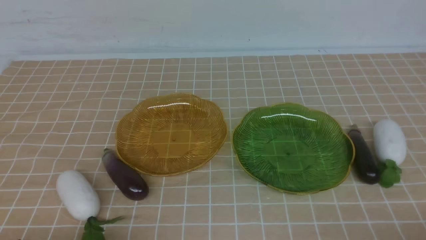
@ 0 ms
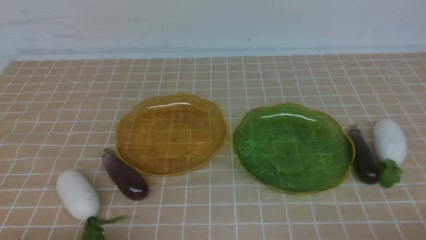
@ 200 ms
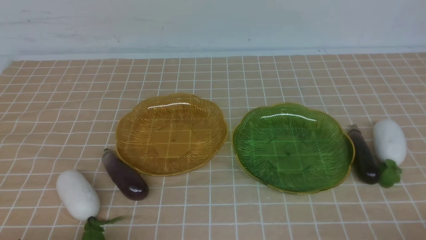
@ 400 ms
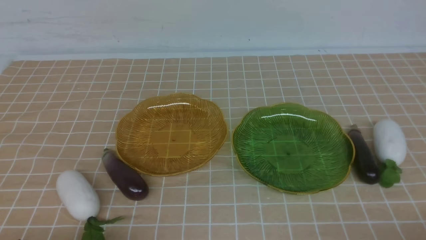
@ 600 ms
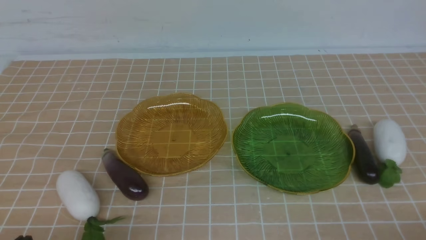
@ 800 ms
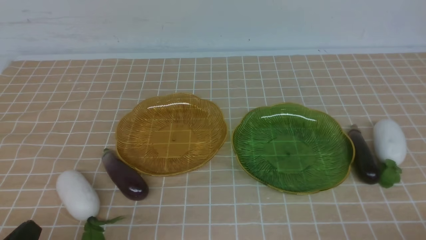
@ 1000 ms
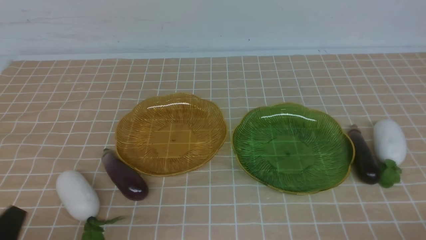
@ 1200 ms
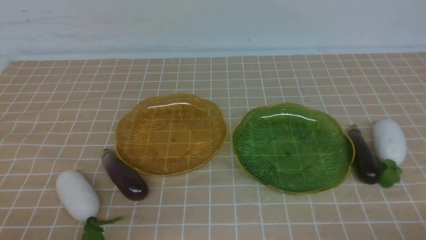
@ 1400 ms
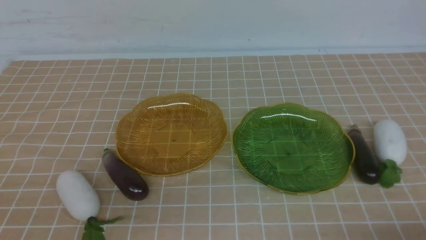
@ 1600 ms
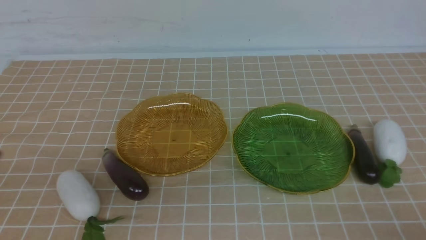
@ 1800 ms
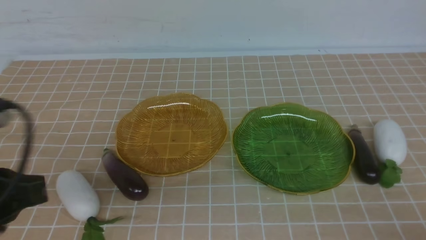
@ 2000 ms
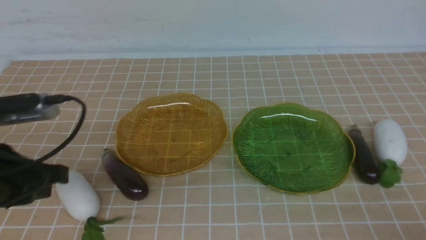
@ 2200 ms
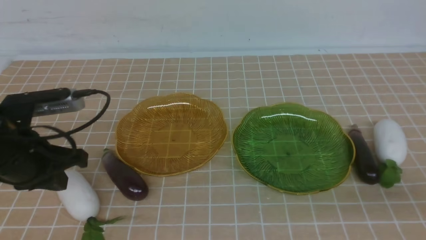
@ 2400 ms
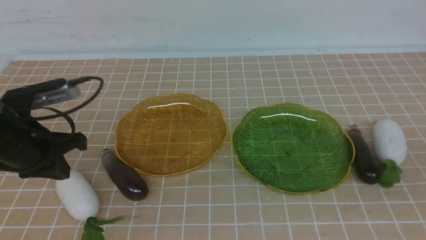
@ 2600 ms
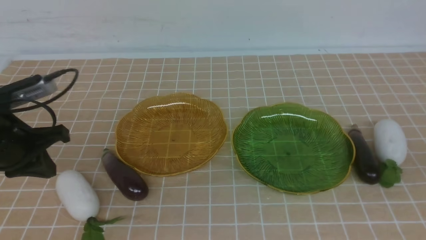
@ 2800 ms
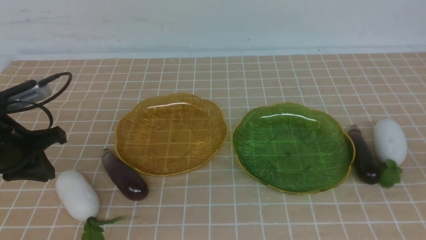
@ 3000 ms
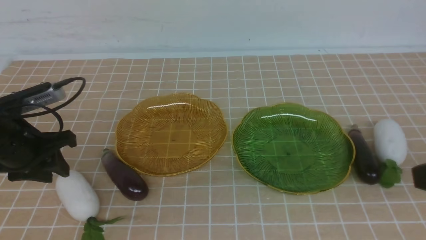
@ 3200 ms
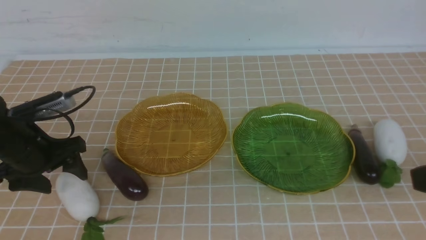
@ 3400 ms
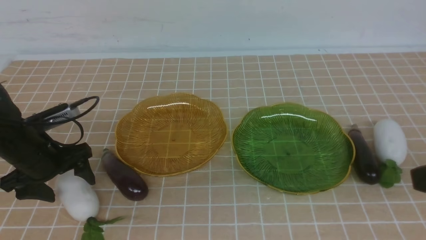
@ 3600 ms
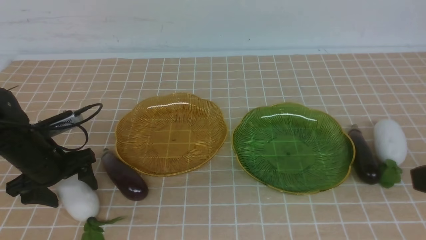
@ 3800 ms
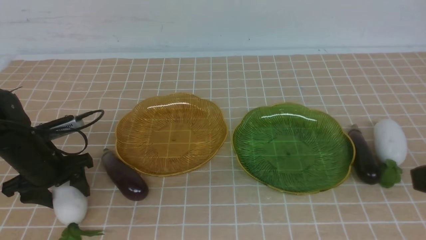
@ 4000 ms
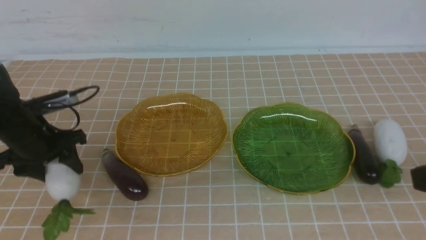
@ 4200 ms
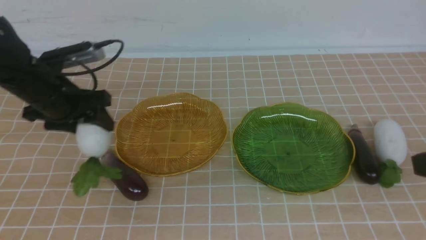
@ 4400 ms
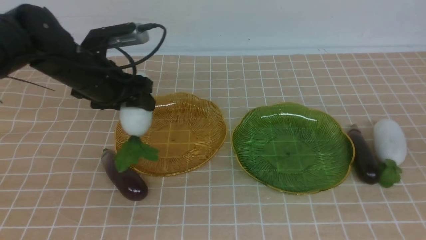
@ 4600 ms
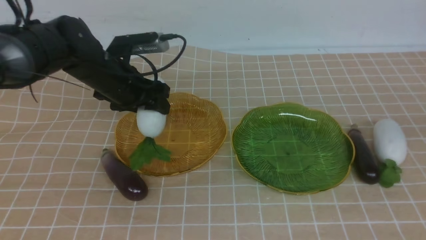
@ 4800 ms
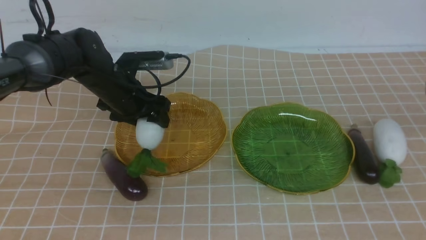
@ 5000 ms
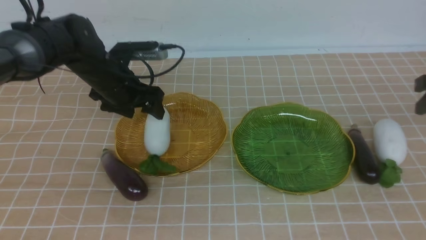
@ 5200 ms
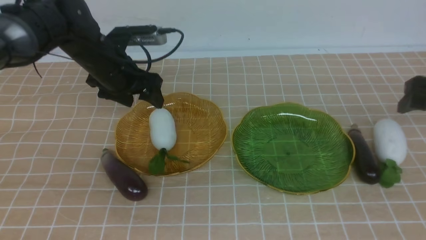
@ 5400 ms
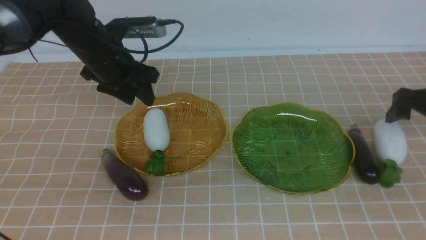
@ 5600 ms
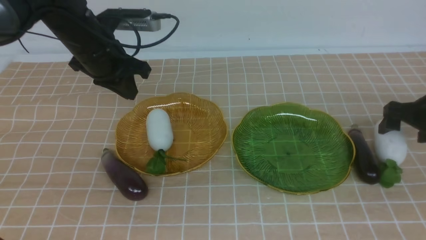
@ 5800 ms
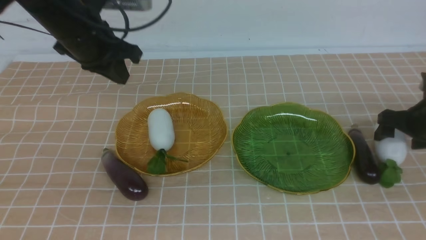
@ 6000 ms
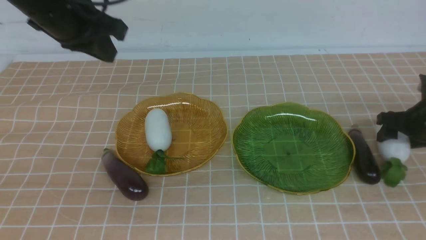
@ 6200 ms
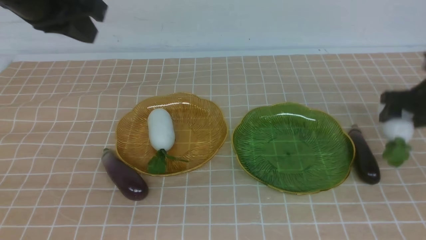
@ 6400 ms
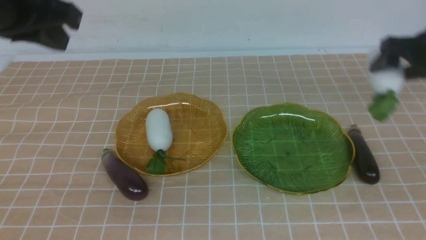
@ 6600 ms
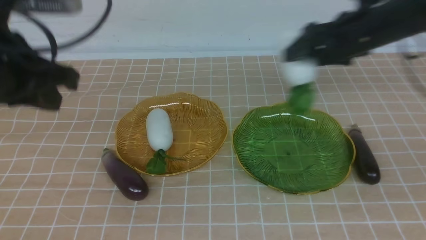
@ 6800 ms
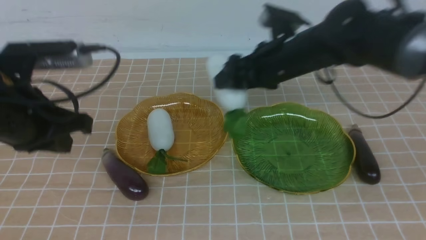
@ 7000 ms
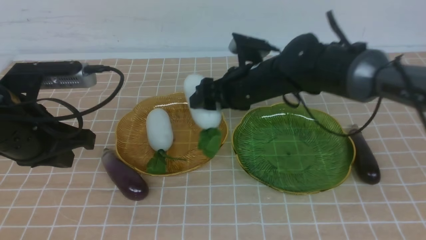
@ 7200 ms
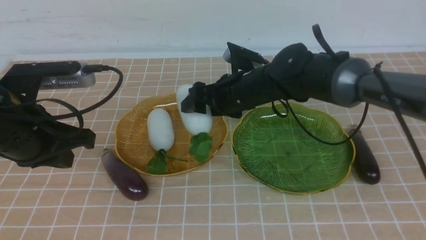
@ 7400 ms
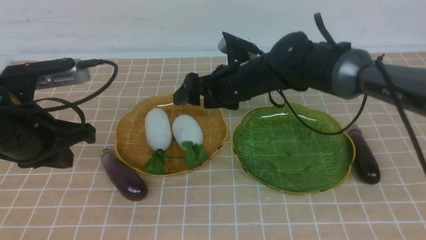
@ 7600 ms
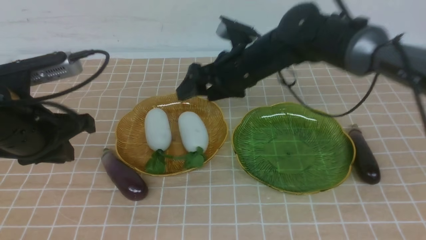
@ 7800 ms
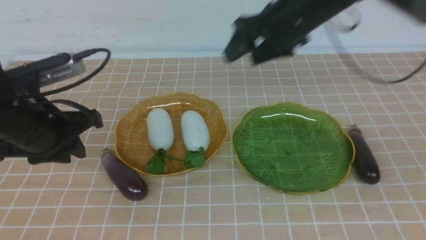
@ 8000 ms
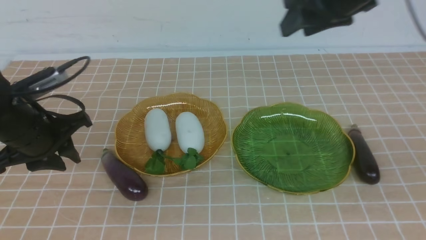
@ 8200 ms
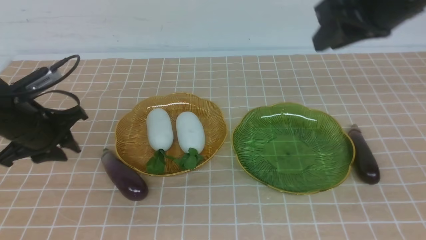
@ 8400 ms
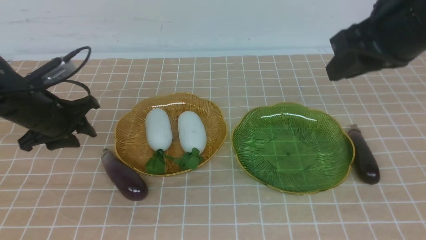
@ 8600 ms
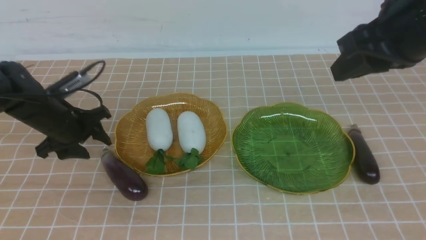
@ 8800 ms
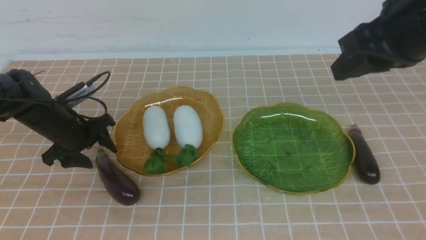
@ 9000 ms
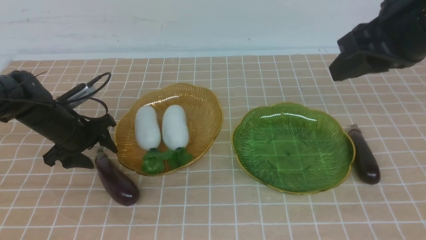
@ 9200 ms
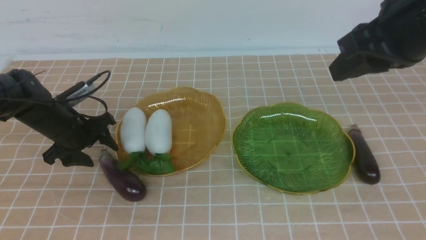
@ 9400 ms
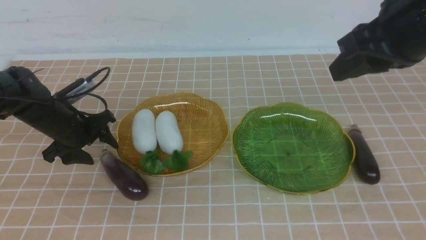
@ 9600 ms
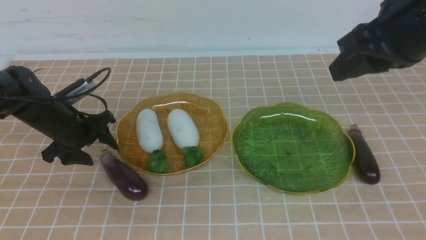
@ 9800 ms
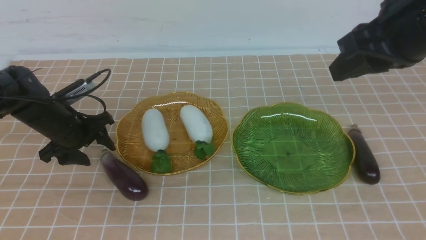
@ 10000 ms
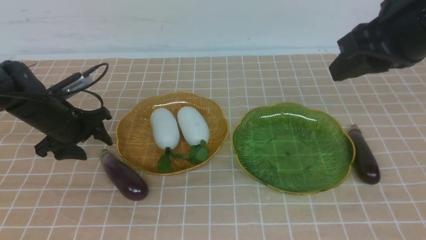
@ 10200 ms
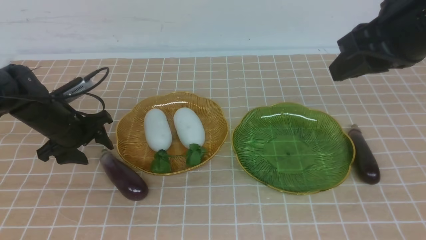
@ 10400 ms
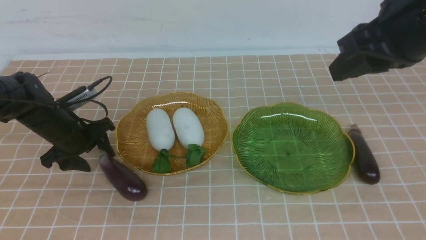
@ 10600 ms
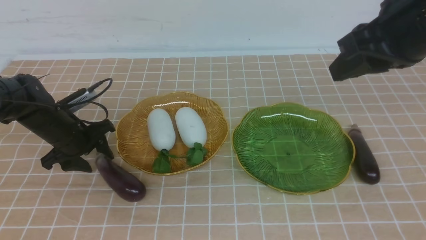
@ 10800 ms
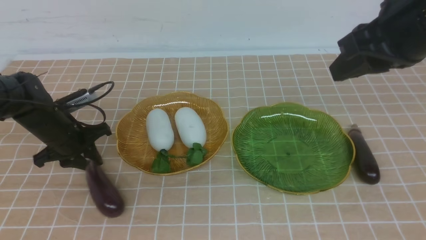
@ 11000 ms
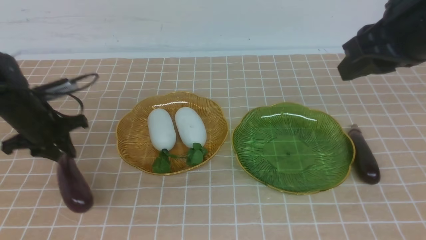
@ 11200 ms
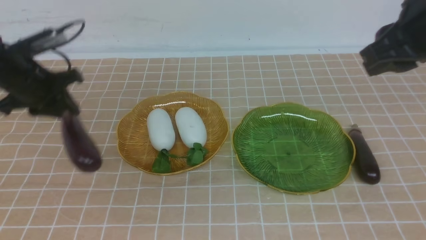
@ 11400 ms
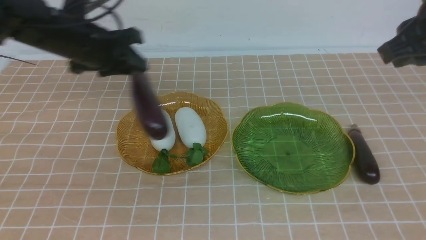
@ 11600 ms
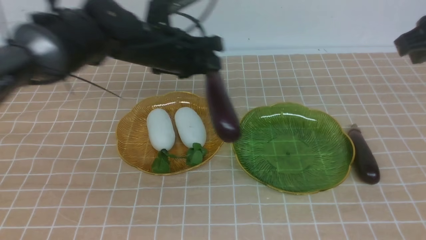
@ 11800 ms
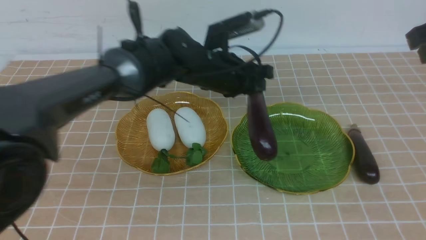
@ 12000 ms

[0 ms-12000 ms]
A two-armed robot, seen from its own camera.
Step, 0 ms to 5400 ms: use the left arm to grab a radish and put it into the left plate.
Step, 5600 ms to 7600 ms: use the right arm to grab a radish and put it into the left plate.
1600 ms to 3000 ms: The right gripper shifts some 20 cm upward. The left gripper heads forward, covering some 25 cm.
3000 ms to 4400 ms: The left gripper shifts some 10 cm forward, goes downward and returns, approximately 10 cm each way, and opens.
4400 ms to 6000 ms: The left gripper moves upward and to the right, about 15 cm, and closes up. Meanwhile the right gripper goes approximately 30 cm forward and downward, and opens its fingers.
6000 ms to 7600 ms: The left gripper travels backward and downward by some 15 cm. Meanwhile the right gripper moves to the left, about 30 cm.
7600 ms to 9000 ms: The left gripper goes some 20 cm downward and forward, and opens; the right gripper goes some 25 cm to the right, backward and upward, and closes.
9000 ms to 10400 ms: Both grippers stay put.
10400 ms to 12000 ms: The right gripper moves to the right, approximately 5 cm; the left gripper moves to the right, some 25 cm, and closes up.

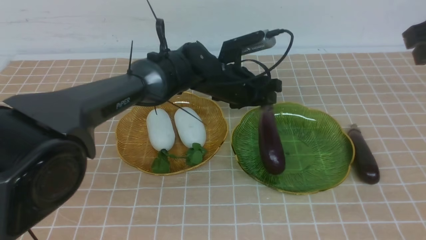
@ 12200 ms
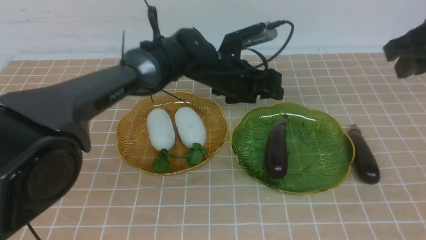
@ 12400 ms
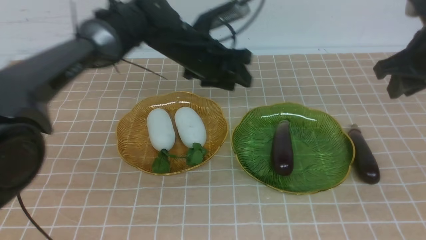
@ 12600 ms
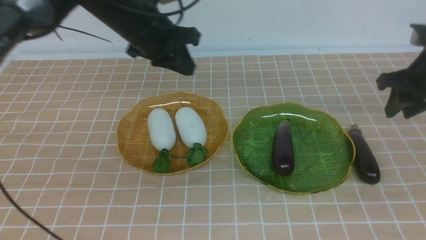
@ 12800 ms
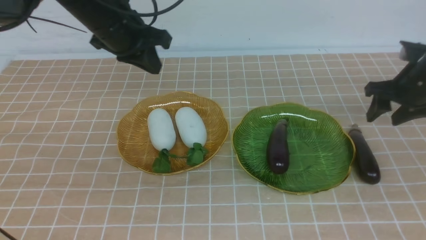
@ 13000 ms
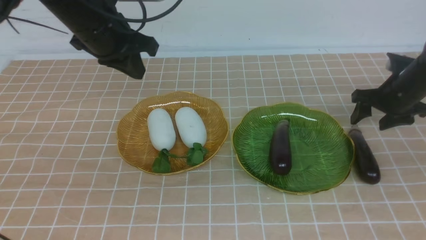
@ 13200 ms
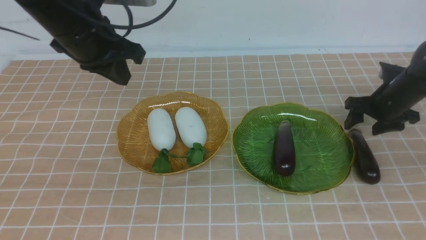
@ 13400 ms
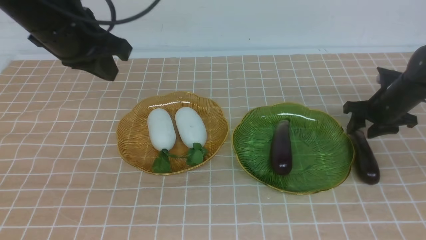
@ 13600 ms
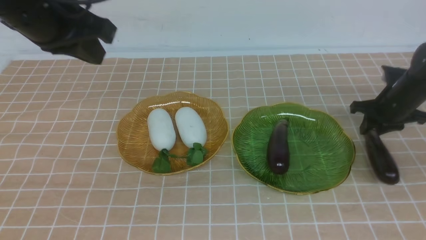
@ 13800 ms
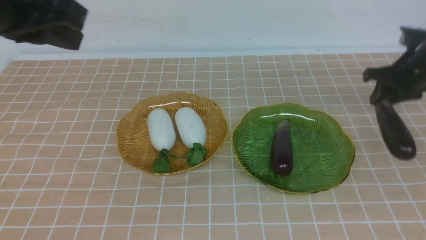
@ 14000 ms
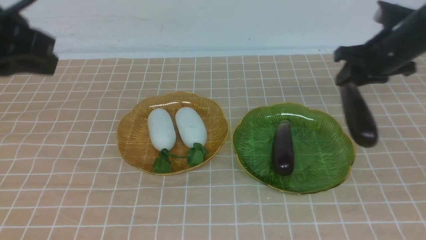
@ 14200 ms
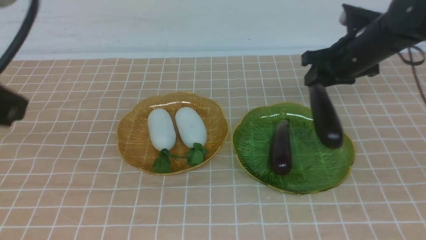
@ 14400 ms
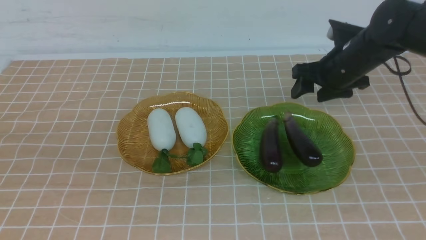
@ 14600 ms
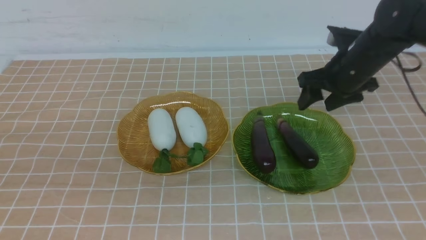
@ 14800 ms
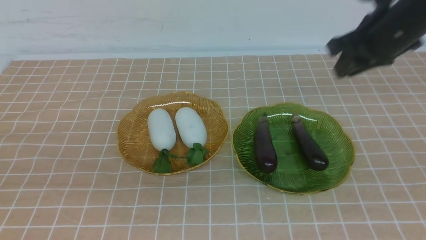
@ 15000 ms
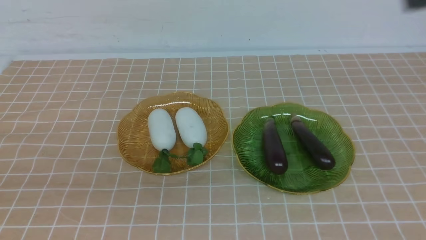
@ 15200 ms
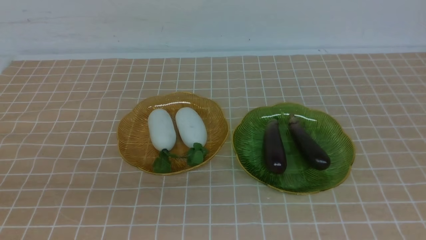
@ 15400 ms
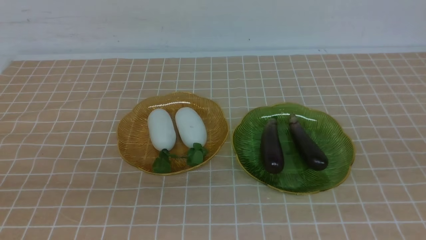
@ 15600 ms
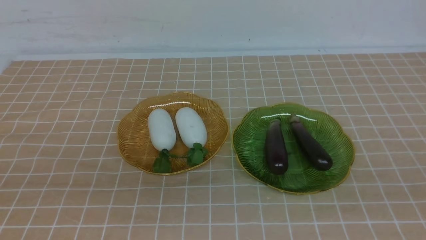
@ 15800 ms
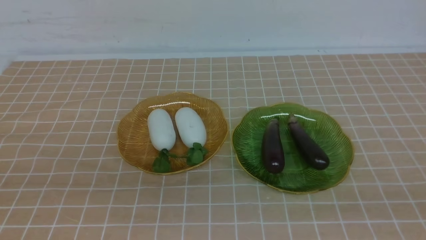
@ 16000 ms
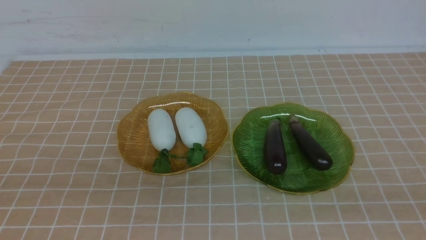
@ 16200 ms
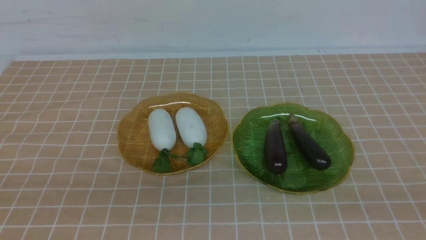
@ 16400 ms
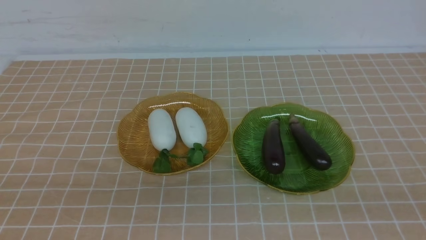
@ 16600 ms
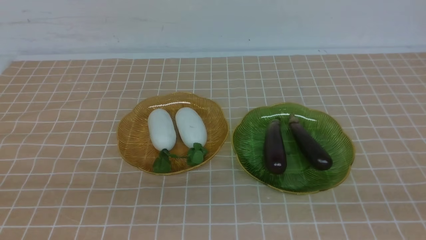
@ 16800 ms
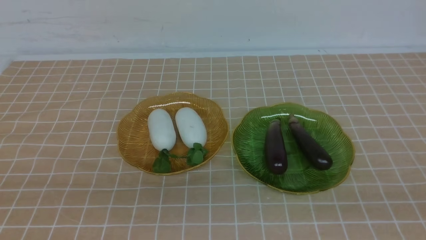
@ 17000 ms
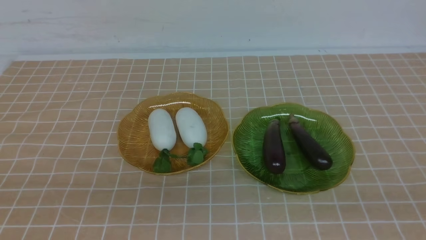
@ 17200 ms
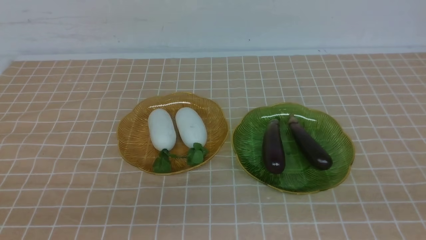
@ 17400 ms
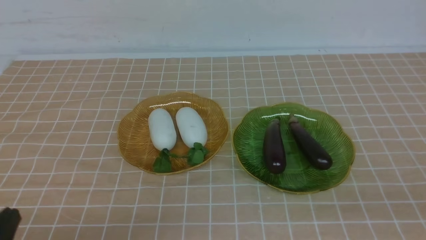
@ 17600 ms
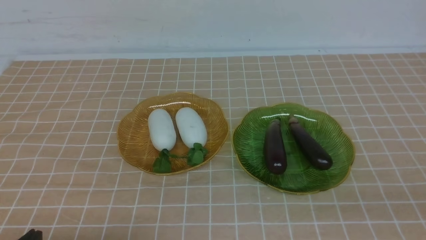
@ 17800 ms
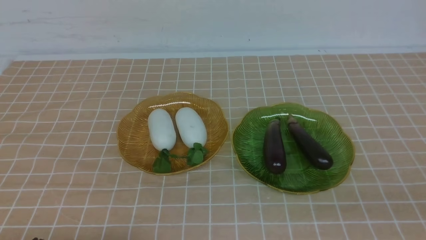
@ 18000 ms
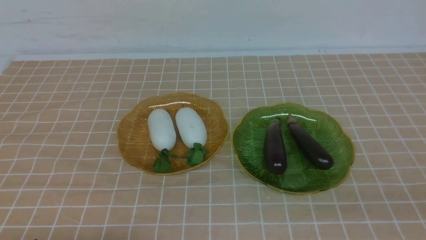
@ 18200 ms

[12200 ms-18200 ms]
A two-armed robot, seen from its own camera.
Step, 12200 ms to 14800 ms: use the left arm to grab an eggplant and put it into the right plate.
12200 ms to 13800 ms: The left gripper heads backward, upward and to the left, covering approximately 35 cm, and closes. Meanwhile the right gripper travels downward and forward by about 15 cm, and opens and closes again.
13800 ms to 15200 ms: The right gripper shifts approximately 40 cm backward and upward, and closes up. Meanwhile the left gripper heads backward, covering about 15 cm.
15200 ms to 16600 ms: The right gripper goes approximately 20 cm downward and backward.
